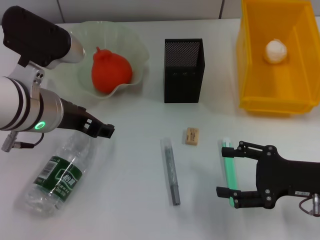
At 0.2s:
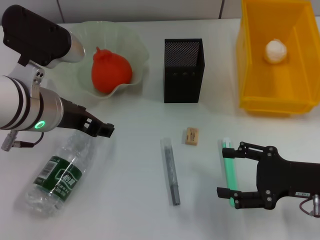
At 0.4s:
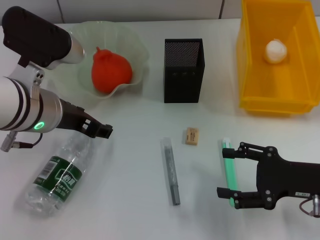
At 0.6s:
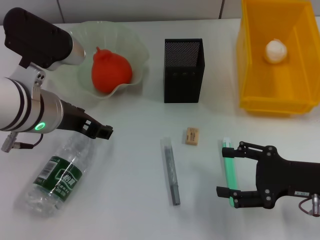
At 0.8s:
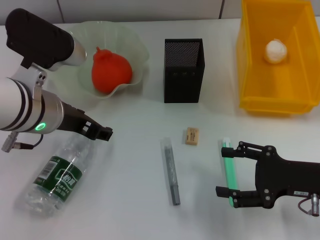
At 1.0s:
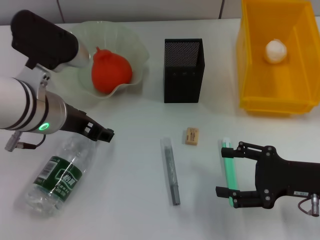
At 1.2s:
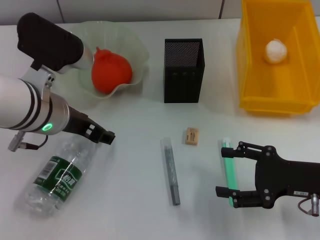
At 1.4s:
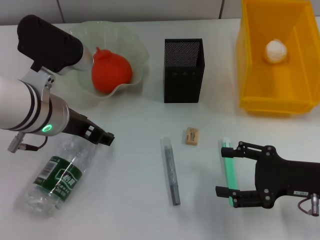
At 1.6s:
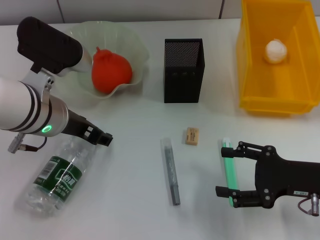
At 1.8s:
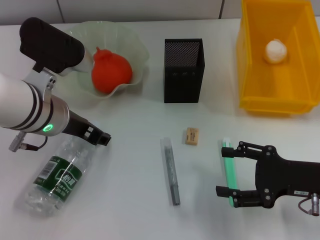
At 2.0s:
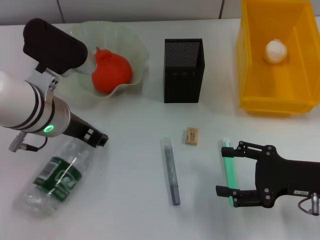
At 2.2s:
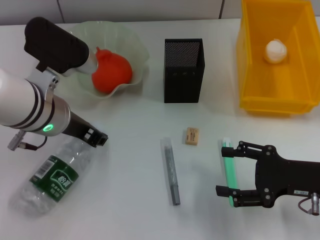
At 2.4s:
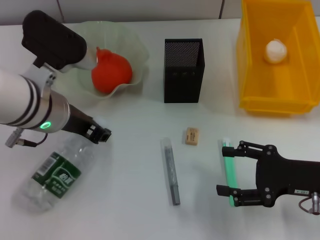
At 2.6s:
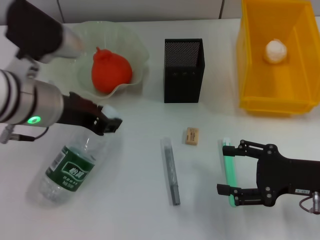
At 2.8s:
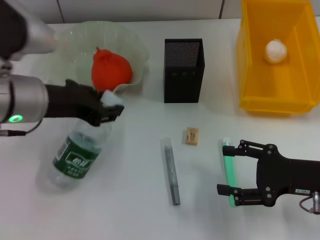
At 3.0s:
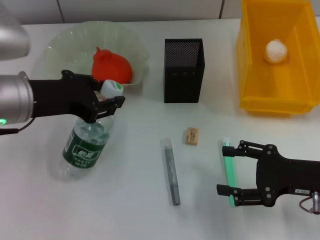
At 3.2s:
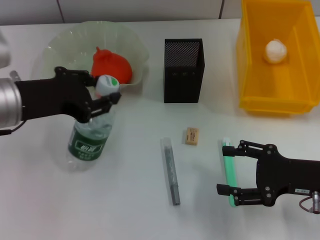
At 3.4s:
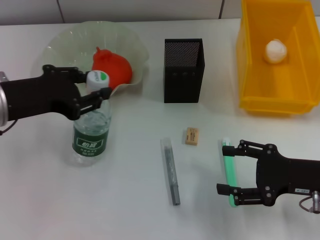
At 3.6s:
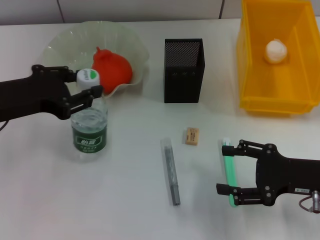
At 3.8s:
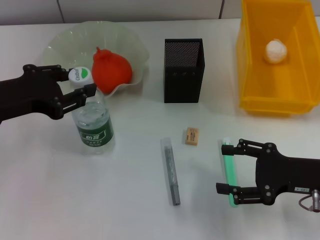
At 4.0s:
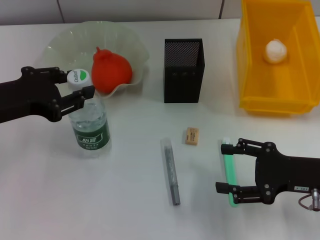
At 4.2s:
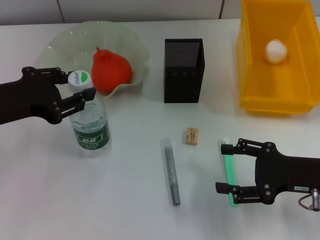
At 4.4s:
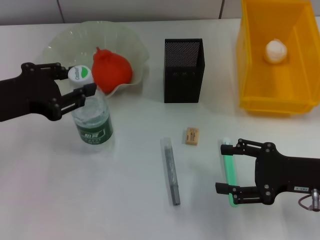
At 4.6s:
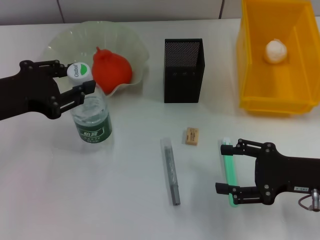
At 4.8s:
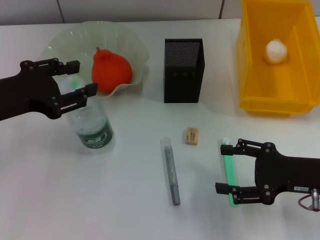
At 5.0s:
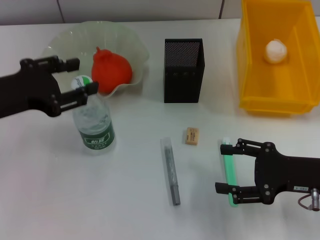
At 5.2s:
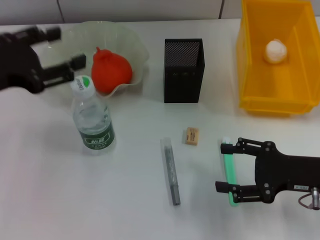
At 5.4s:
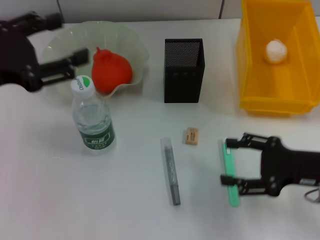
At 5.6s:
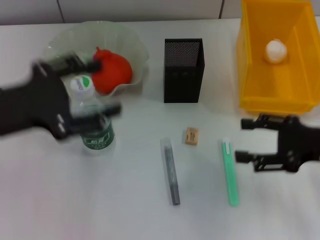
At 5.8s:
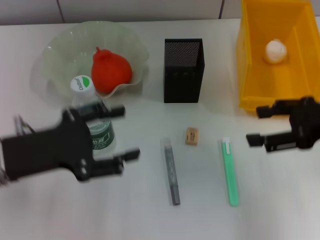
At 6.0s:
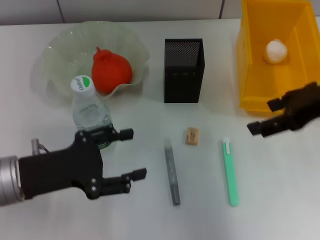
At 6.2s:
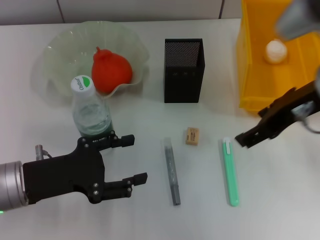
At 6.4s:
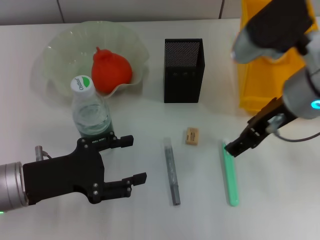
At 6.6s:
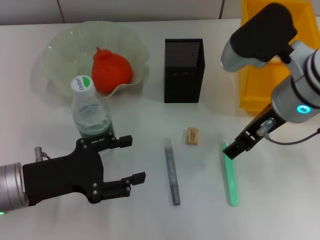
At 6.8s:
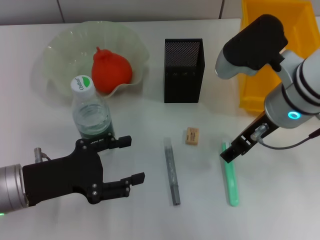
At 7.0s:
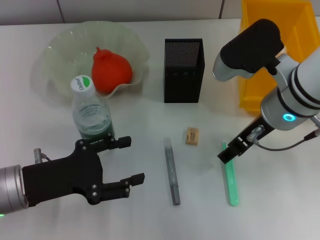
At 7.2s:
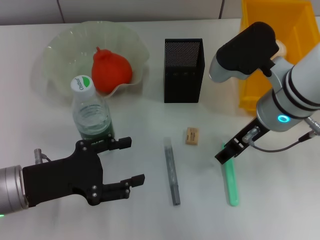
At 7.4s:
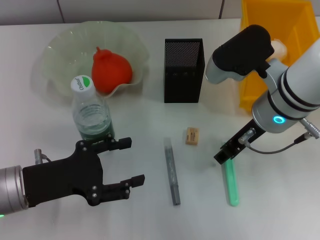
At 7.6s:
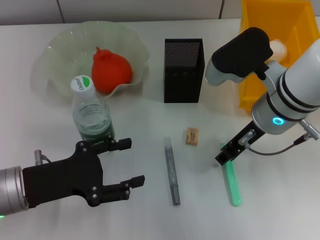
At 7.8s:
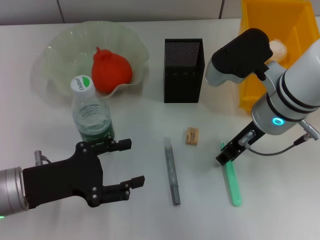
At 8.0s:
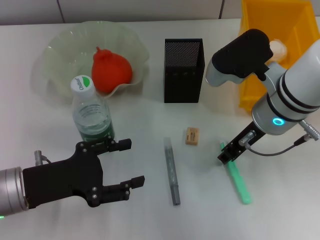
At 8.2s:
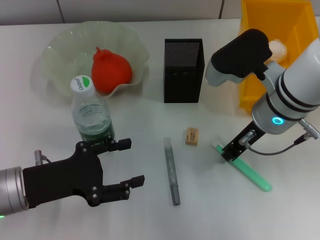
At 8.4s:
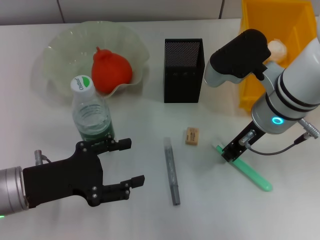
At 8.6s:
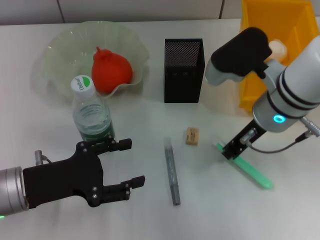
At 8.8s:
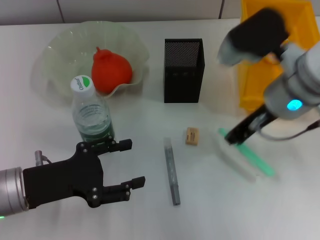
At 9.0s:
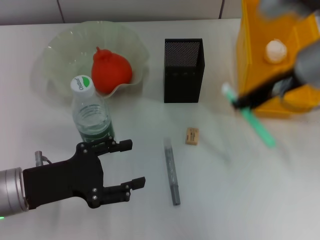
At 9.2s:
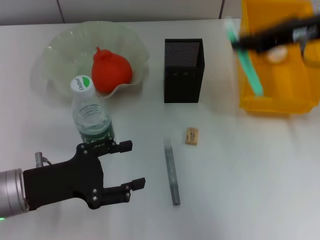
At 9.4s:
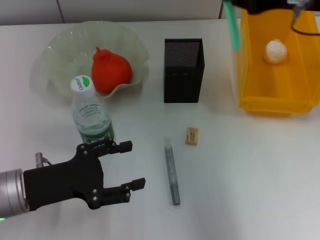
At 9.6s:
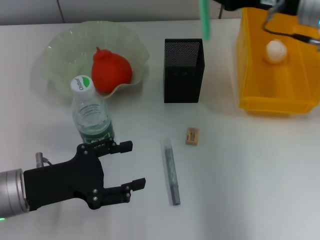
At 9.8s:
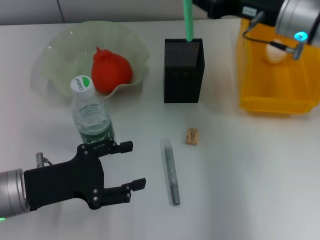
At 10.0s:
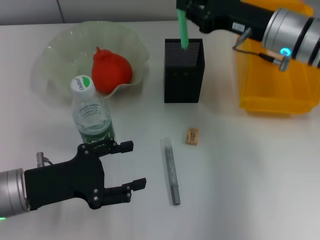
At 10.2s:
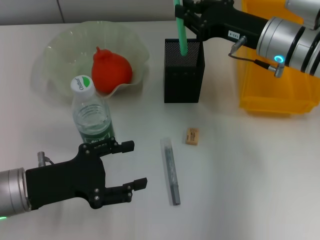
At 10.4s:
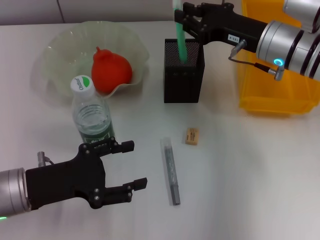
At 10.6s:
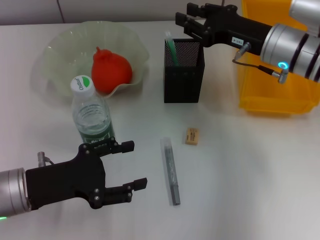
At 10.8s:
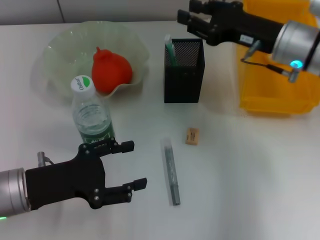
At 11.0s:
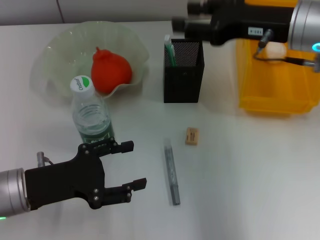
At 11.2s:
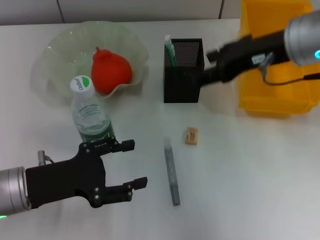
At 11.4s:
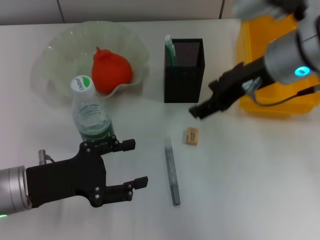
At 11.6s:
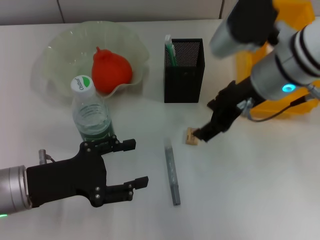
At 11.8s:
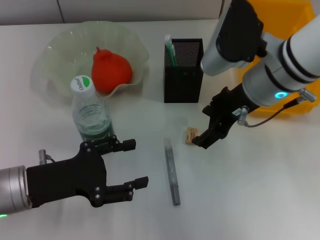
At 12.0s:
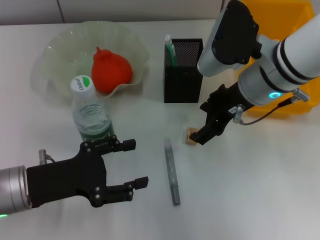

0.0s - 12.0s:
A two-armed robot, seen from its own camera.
Step, 0.0s - 2.0s: Grab the water bottle with the left hand.
Step, 2.2s - 5.4s: Place the water bottle on the table with the left hand.
Step, 5.6s - 8.2s: Grab the blue utility knife with the right hand.
Step, 8.4s - 10.8s: Place the blue utility knife into the pen holder with the right hand.
0.0s - 1.6s: The grippers stay close to where they were, moving slightly.
1.6s - 3.0s: The left gripper shifts by some 5 cm, and closes up.
3.0s - 4.4s: The left gripper travels to the left by some 5 cm.
4.4s - 6.0s: The left gripper travels downward by some 10 cm, and opens its fingers. The right gripper goes roughly 15 cm upward.
6.0s - 7.6s: The right gripper travels to the left and downward by about 15 cm, and closes up.
7.6s - 9.0s: The right gripper shifts roughly 10 cm upward, and closes up.
9.0s - 10.4s: The right gripper travels downward and forward by about 10 cm.
10.4s - 12.0s: The right gripper heads to the left, covering approximately 5 cm, and opens its fingers.

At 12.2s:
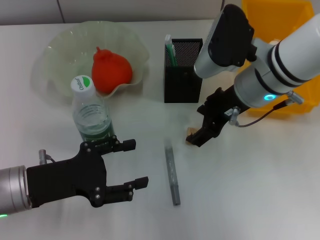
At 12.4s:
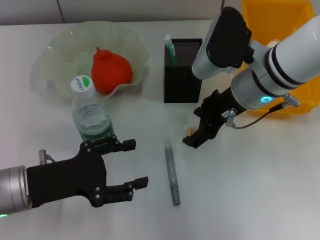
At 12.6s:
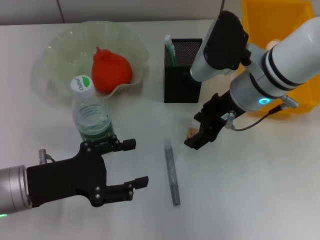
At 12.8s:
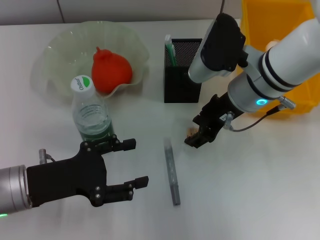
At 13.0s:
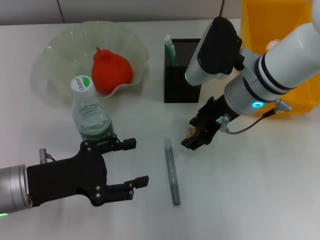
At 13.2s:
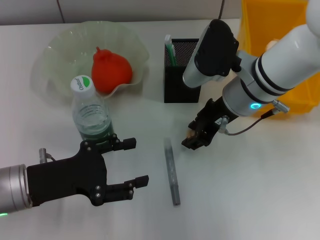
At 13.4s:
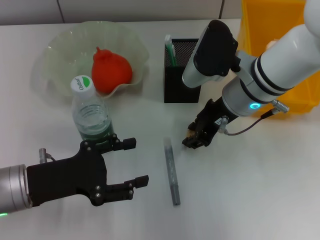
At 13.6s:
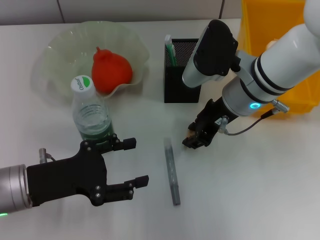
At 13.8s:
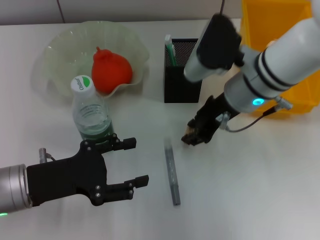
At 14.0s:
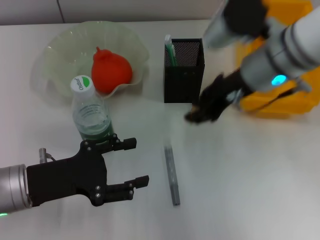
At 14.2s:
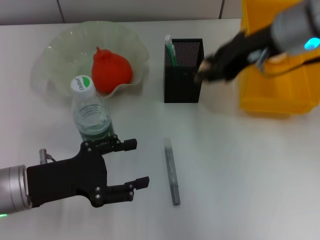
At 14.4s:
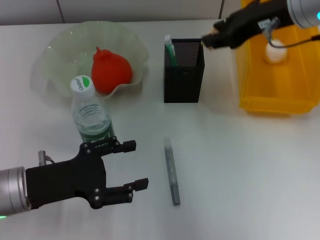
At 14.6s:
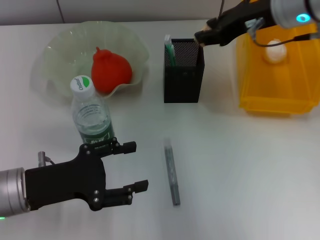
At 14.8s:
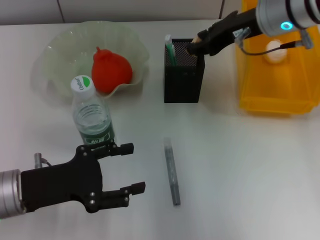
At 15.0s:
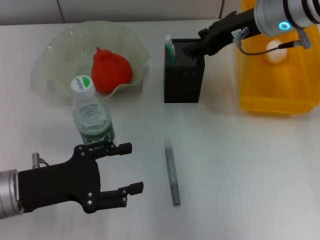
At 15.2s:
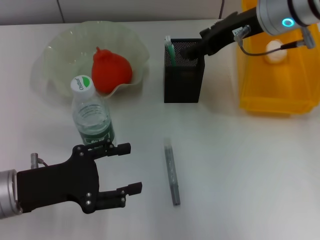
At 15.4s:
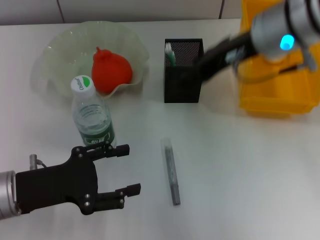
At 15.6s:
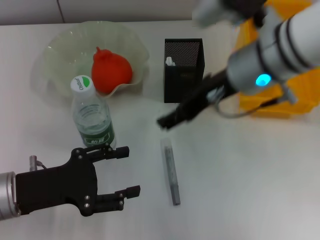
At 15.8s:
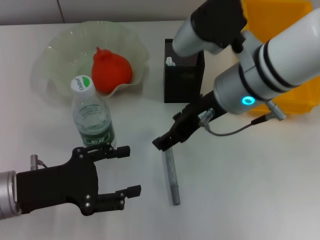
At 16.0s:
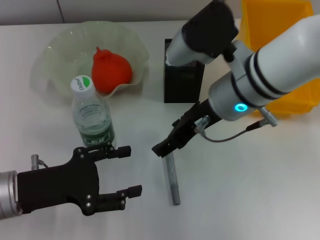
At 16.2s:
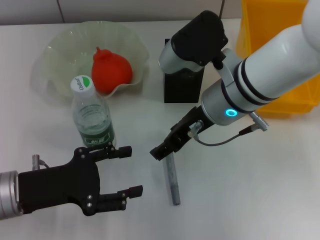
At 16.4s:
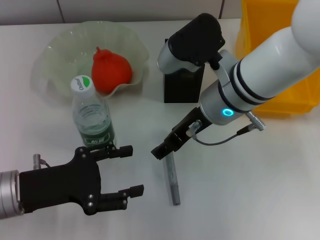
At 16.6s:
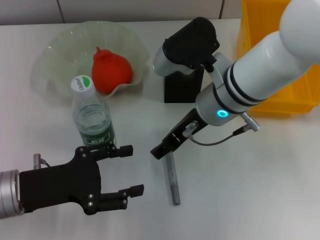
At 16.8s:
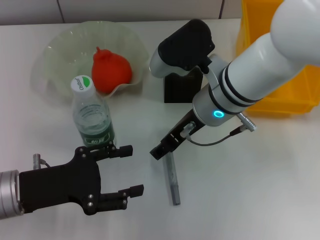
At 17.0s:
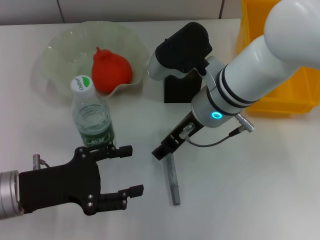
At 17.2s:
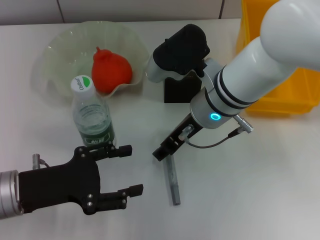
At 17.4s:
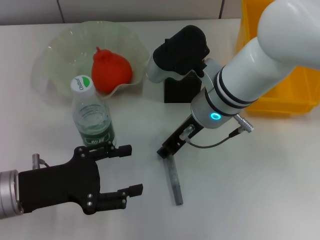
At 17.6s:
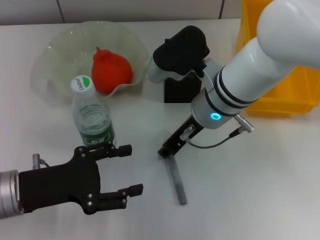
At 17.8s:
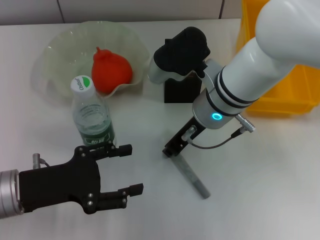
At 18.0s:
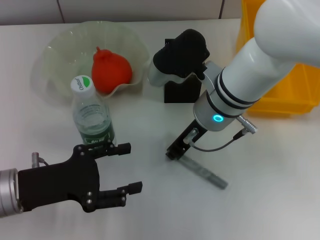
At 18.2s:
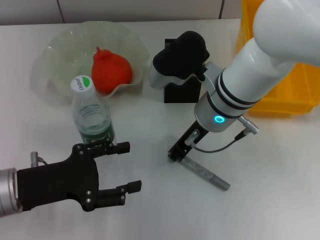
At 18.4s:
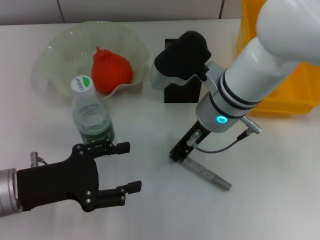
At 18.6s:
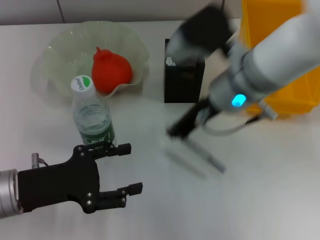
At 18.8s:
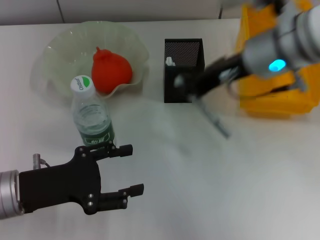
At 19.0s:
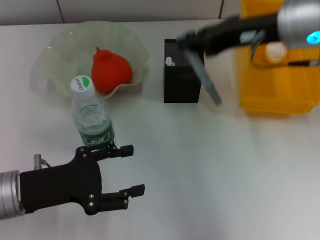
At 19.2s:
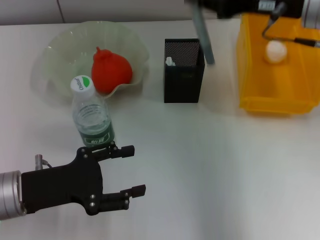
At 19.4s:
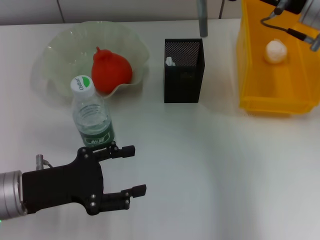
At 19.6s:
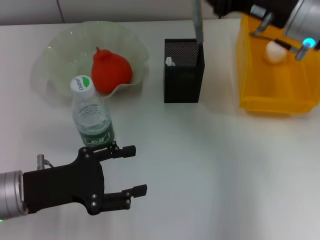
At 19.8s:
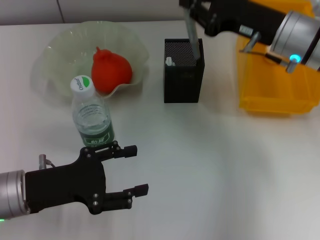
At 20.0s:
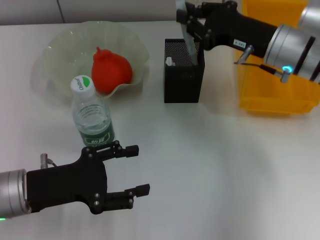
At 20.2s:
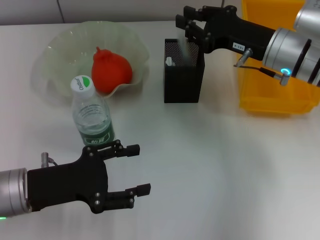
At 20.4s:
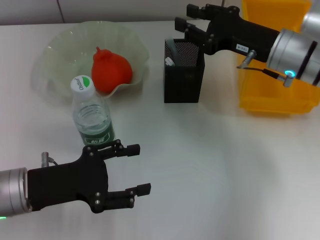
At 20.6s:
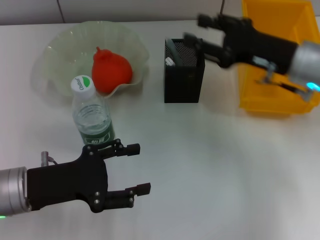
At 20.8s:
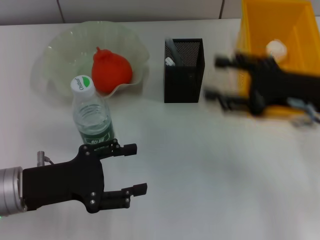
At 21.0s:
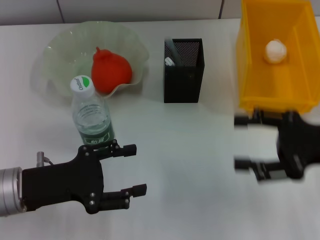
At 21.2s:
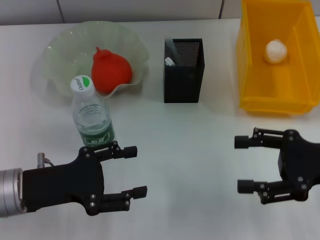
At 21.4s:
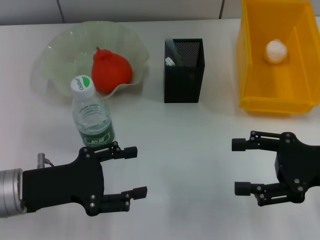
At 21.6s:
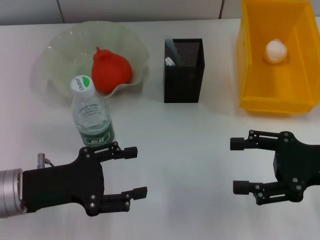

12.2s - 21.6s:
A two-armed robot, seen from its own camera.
Step, 13.6s - 15.2s: Put the eraser into the pen holder with the right hand.
Step, 15.4s - 18.0s: Grab the gray glue with the right hand.
Step, 18.2s - 20.4s: Place the gray glue into the pen holder with the right hand.
12.2s - 13.8s: The right gripper closes.
13.8s - 15.4s: The right gripper is displaced upward by approximately 10 cm, and opens its fingers.
15.4s - 17.0s: The right gripper goes roughly 10 cm downward and to the left.
17.0s - 18.4s: The right gripper closes its fingers.
18.4s - 20.0s: The right gripper shifts approximately 10 cm to the right.
20.0s - 21.6s: The right gripper travels backward and to the right by about 15 cm, and opens.
